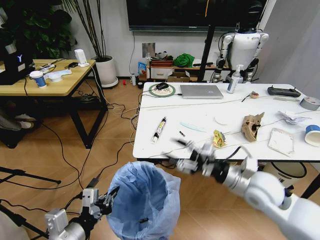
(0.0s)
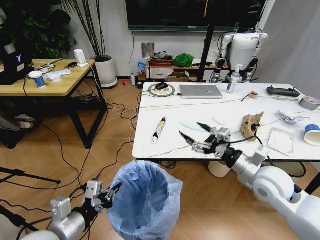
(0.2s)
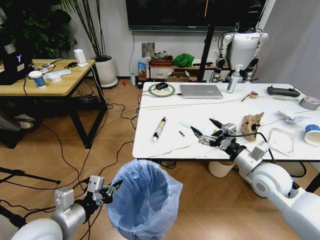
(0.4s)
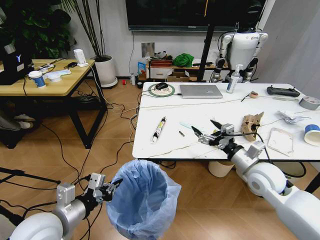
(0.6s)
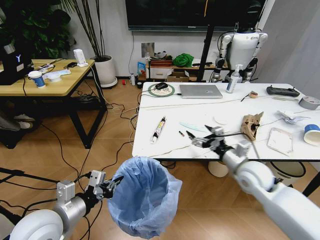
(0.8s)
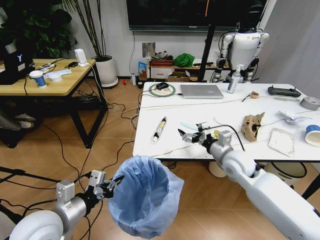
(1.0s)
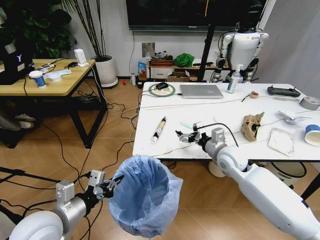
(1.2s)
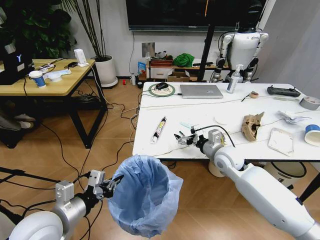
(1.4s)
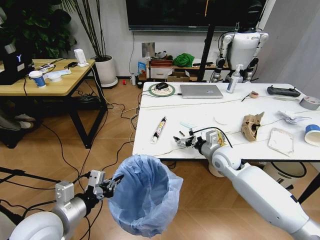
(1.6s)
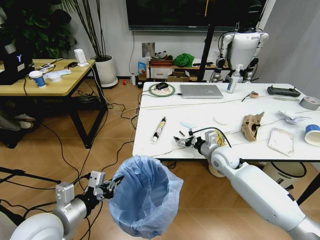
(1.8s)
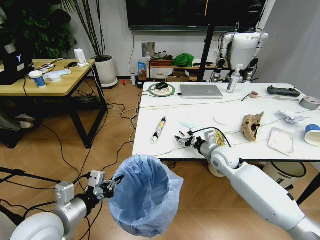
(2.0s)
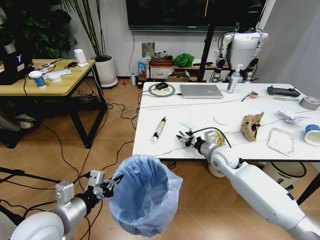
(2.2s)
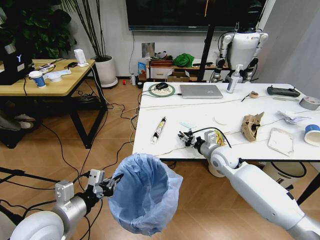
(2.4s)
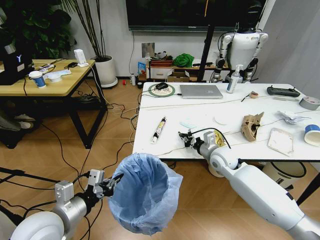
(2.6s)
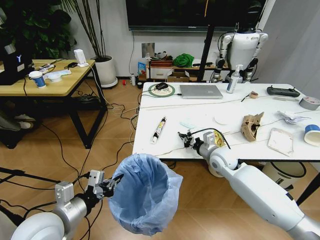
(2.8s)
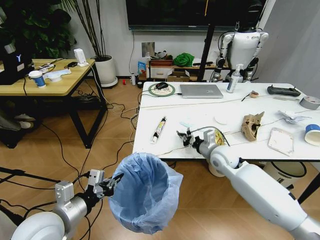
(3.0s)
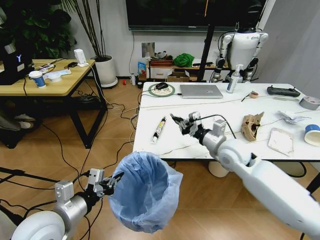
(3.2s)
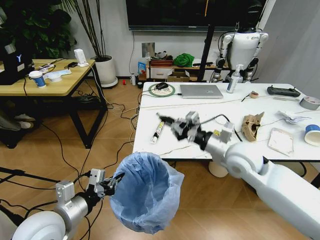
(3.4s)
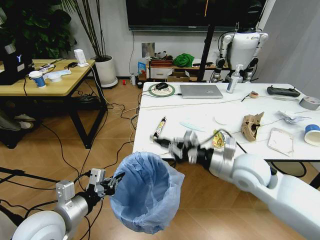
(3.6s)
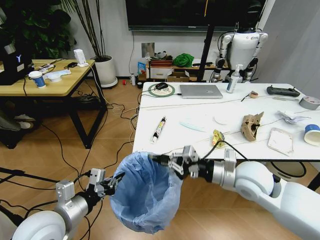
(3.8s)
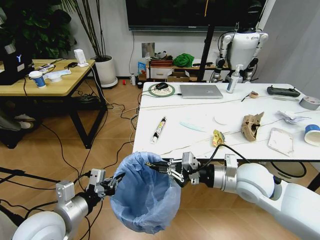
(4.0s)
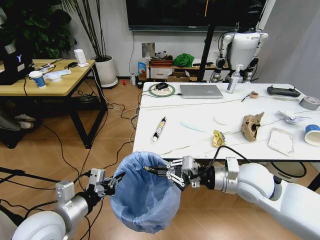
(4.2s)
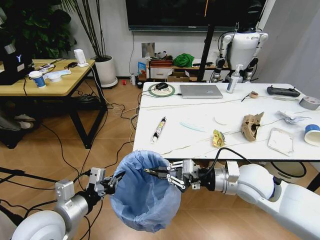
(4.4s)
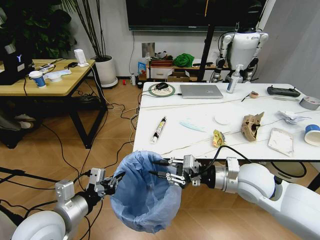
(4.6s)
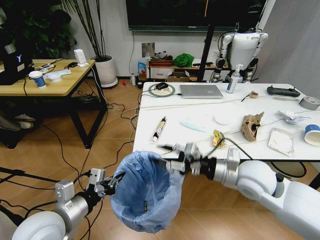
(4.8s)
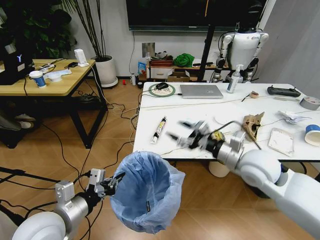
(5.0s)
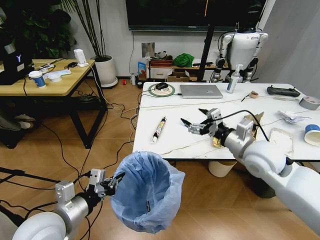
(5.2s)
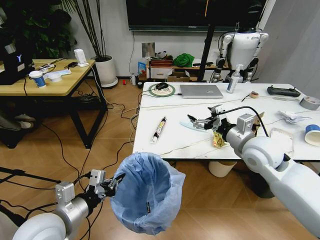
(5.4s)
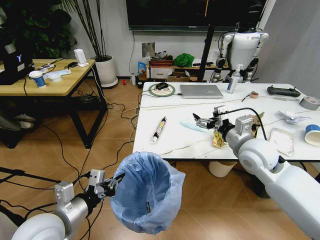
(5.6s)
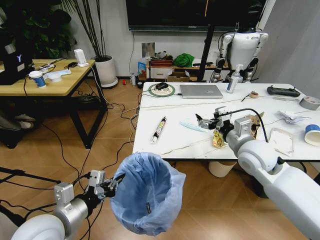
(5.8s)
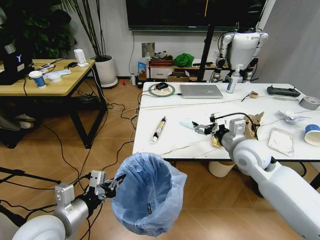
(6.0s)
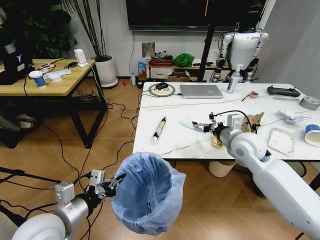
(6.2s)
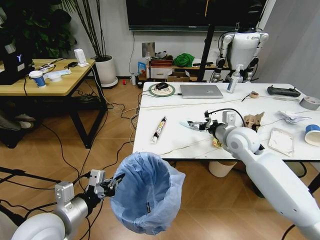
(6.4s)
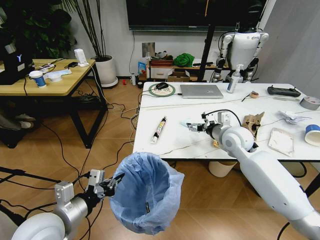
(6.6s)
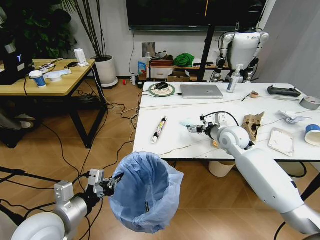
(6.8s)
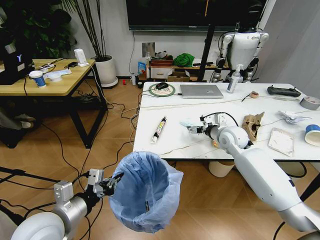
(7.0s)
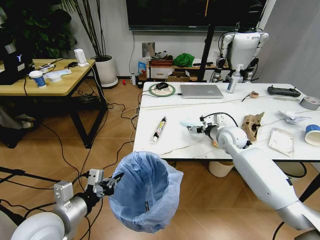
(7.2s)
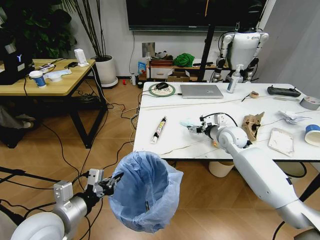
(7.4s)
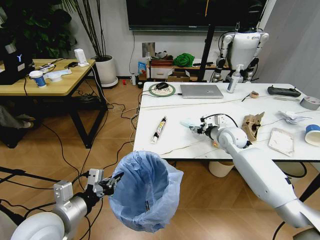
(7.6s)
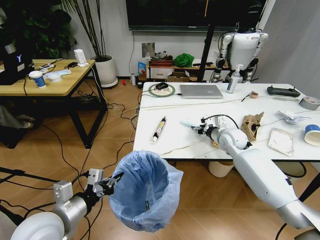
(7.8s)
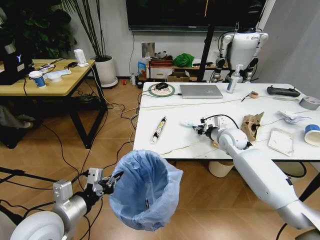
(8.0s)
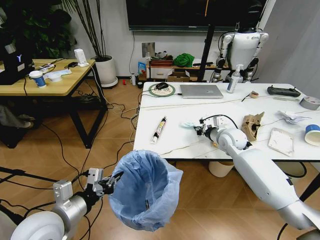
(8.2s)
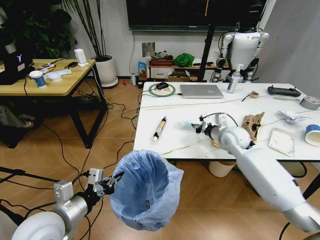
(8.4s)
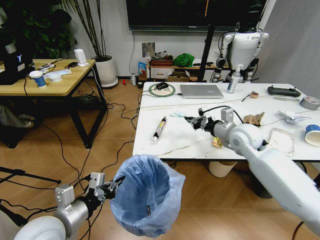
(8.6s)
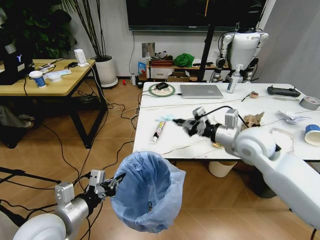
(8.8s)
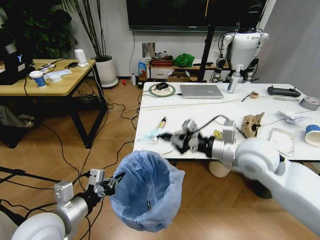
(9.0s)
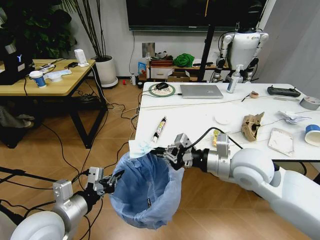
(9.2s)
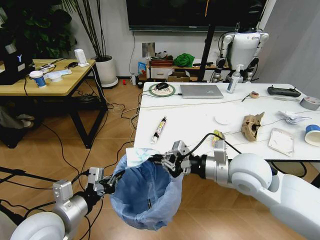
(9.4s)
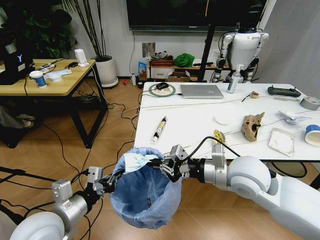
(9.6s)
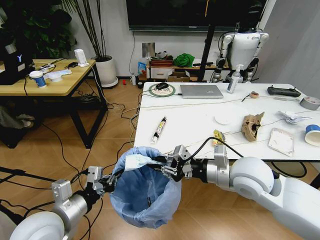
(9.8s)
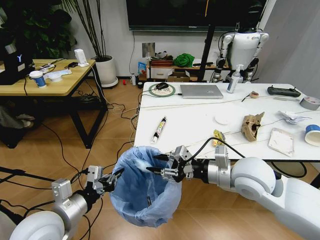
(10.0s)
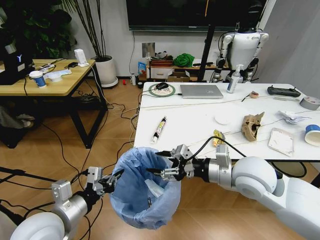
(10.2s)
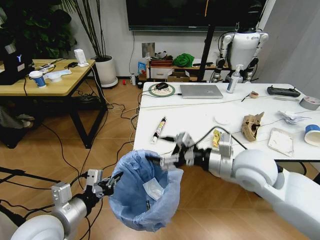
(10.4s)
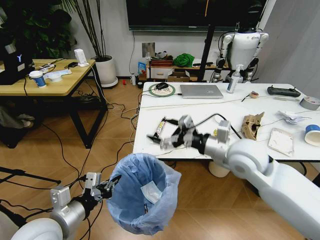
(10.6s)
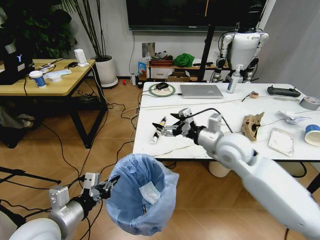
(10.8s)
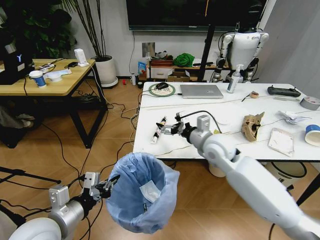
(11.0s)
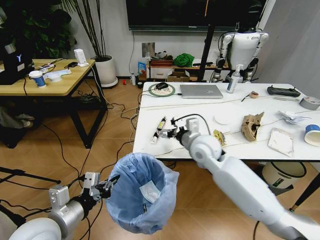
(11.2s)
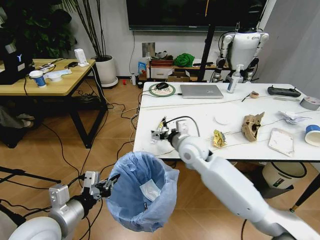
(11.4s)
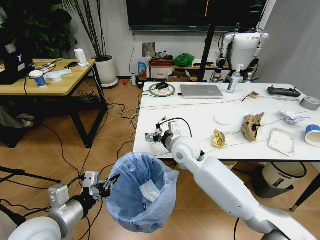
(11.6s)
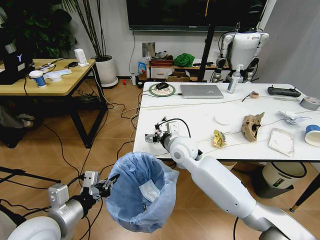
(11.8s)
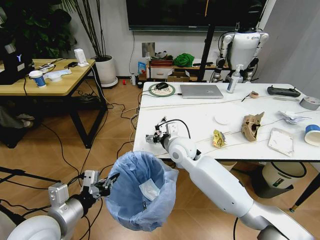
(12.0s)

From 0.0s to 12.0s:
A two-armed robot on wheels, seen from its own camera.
Task of the whole recording: Pick up the trash bin and place the trash from the table into it.
From 0.0s to 1.6s: The right gripper goes approximately 15 cm forward and downward, and opens, while the left gripper goes roughly 5 cm forward.
From 1.6s to 3.0s: The right gripper closes up.
From 3.0s to 4.4s: The right gripper travels backward and upward by roughly 15 cm.
From 4.4s to 6.0s: The right gripper moves forward, approximately 5 cm, and opens its fingers.
From 6.0s to 7.6s: The right gripper is displaced forward and downward by approximately 15 cm.
From 7.6s to 9.0s: The right gripper is displaced backward and upward by about 20 cm, and closes.
From 9.0s to 10.4s: The right gripper opens.
From 10.4s to 12.0s: The right gripper shifts approximately 20 cm to the left, forward and downward.

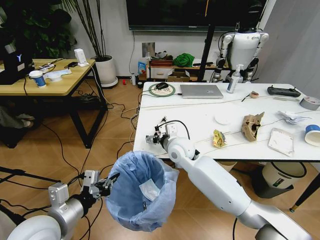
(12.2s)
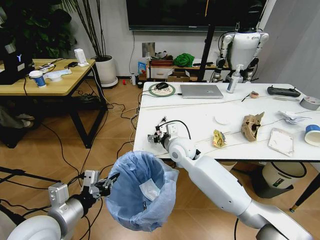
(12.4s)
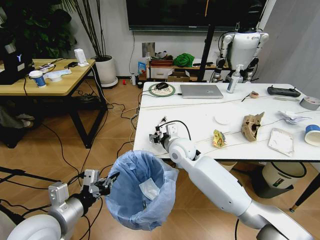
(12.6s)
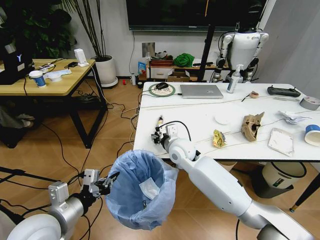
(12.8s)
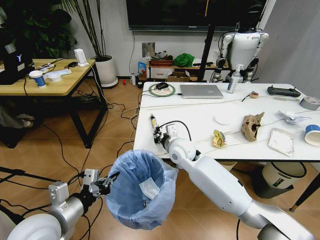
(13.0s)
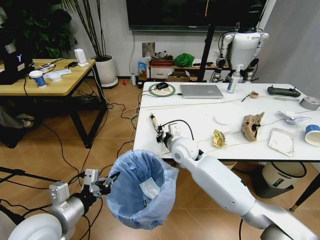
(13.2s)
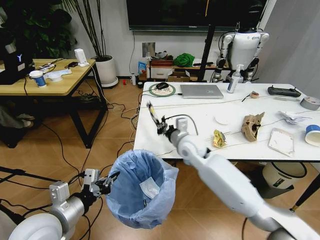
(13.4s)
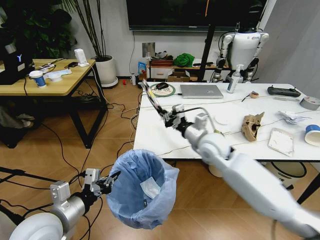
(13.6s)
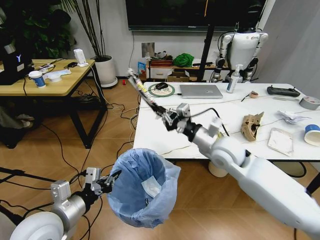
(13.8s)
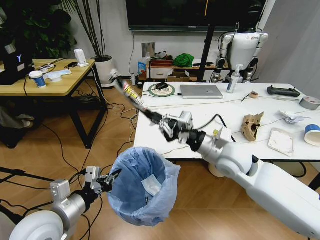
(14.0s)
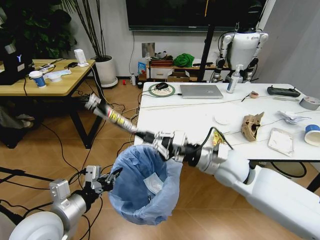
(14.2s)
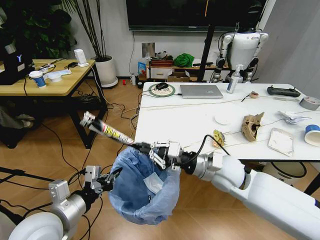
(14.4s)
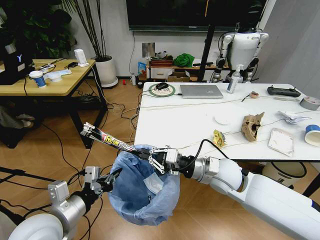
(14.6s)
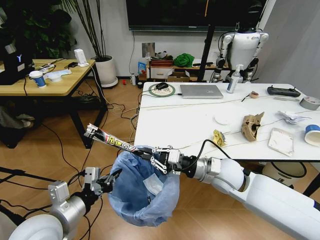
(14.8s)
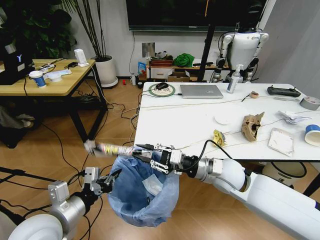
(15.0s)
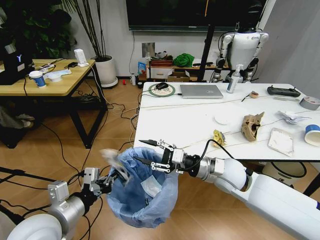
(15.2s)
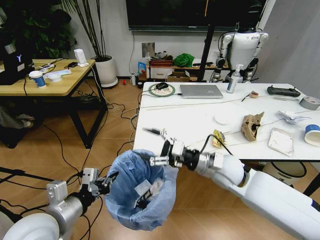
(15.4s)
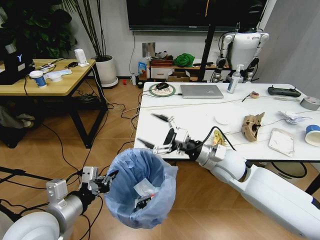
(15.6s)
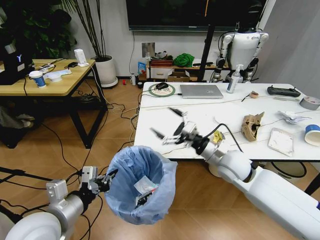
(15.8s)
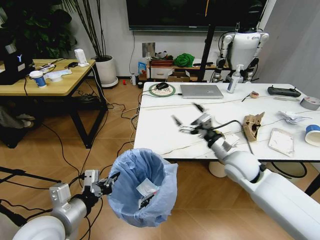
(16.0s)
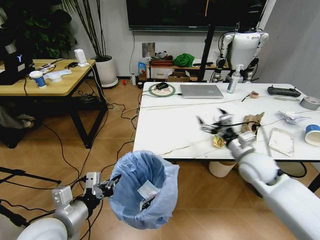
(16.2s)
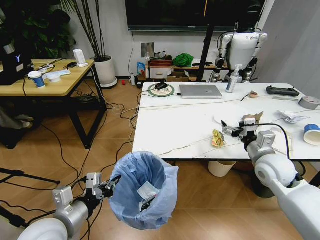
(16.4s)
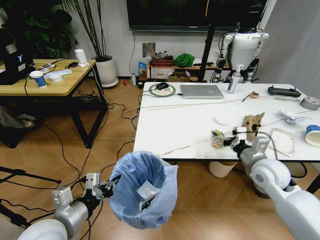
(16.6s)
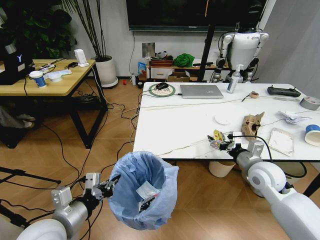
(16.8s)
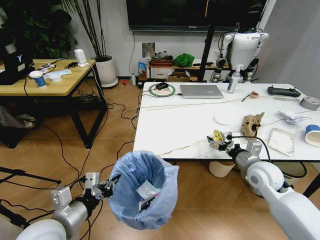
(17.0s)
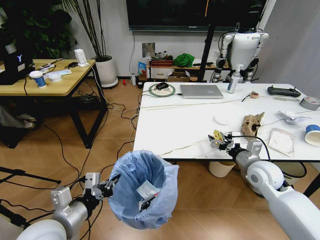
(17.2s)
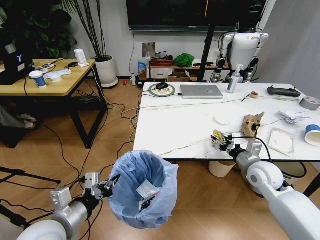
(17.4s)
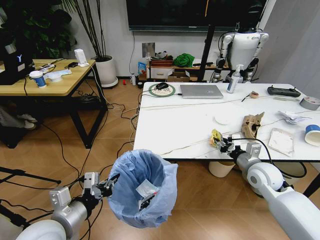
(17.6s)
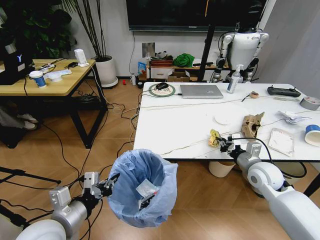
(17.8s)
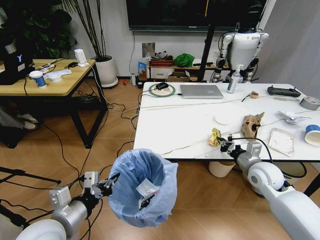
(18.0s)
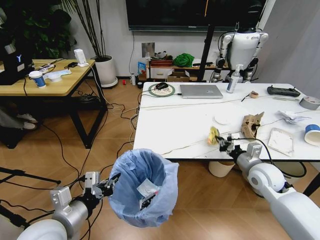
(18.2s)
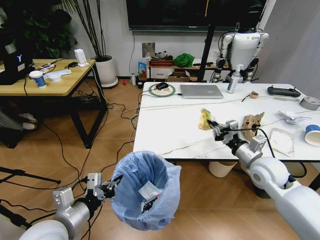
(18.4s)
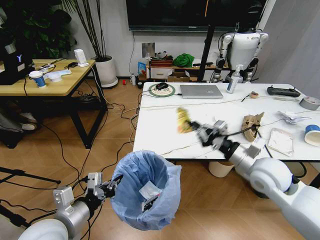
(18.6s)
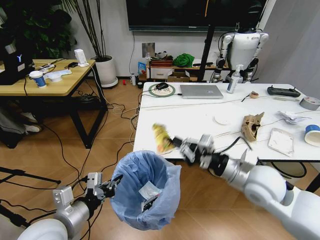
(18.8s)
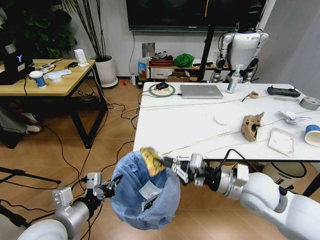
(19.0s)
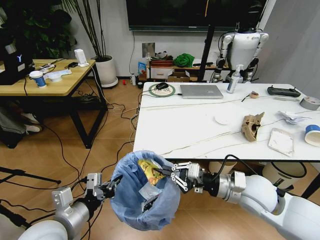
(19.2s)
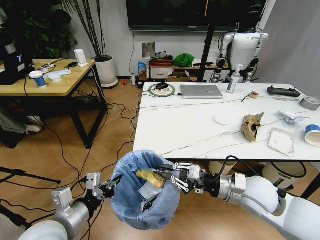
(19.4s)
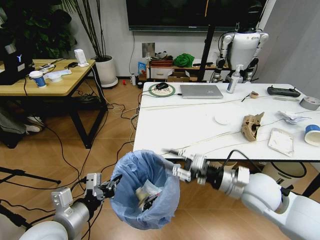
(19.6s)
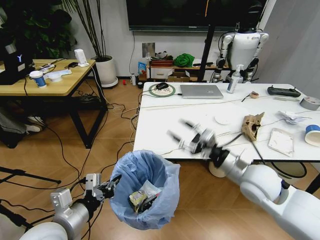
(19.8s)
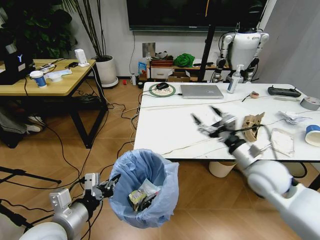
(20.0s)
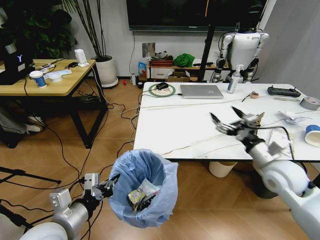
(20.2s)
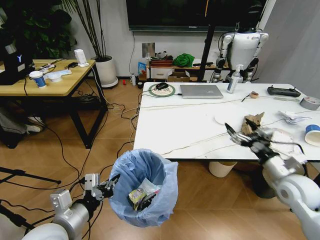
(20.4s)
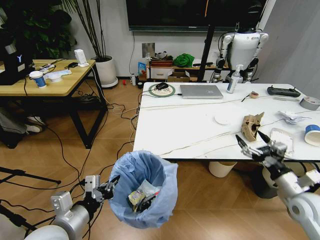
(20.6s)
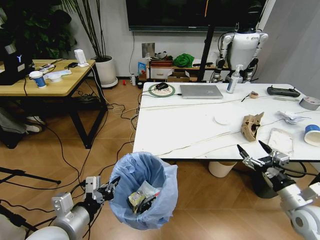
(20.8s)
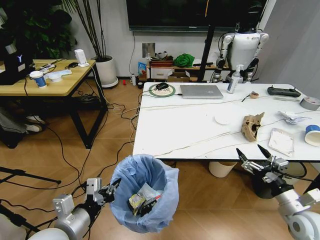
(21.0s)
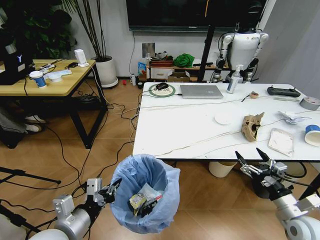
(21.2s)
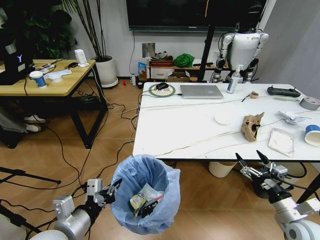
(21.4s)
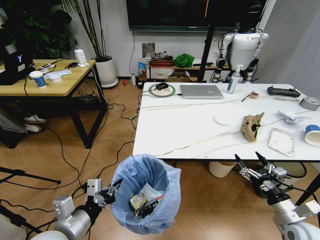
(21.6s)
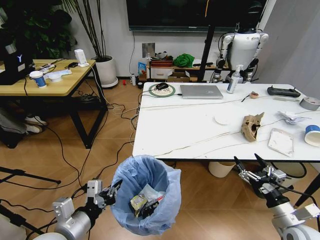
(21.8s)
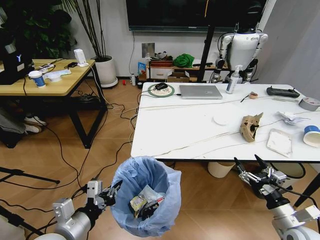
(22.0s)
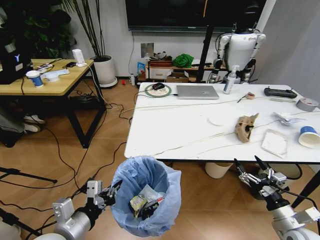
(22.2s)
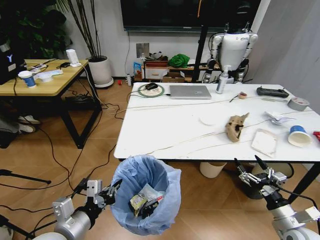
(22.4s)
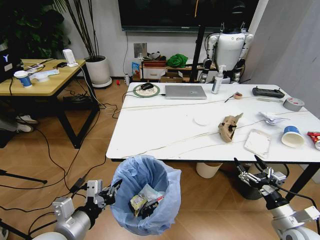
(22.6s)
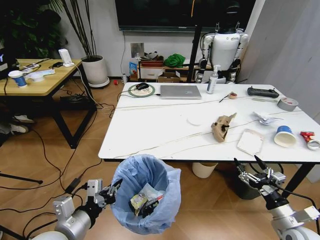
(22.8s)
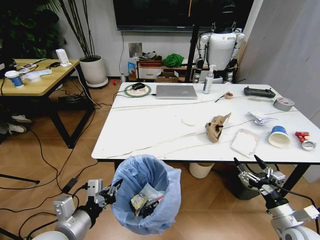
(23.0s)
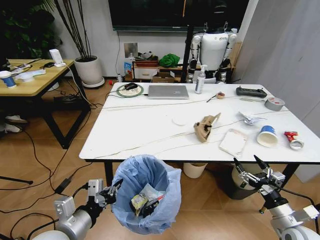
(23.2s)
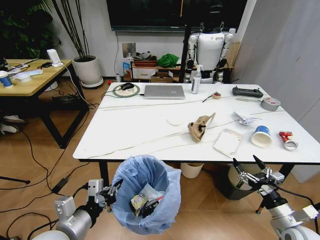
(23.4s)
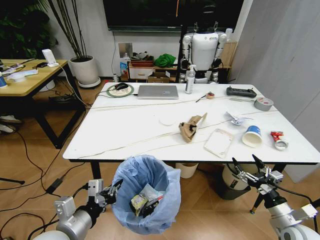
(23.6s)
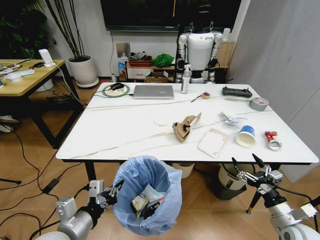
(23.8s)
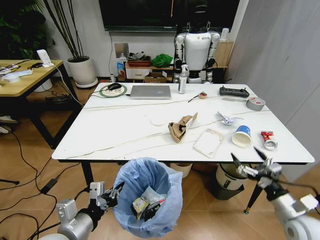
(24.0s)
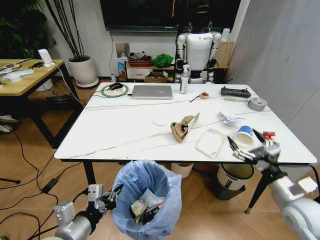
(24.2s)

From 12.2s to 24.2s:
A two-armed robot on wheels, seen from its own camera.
Task of the whole recording: Pick up the trash bin and place the trash from the table into it.
From 12.2s to 13.8s: The right gripper travels to the right, upward and backward by about 15 cm, and closes.
From 13.8s to 15.2s: The right gripper travels downward by approximately 5 cm, and opens up.
From 15.2s to 16.6s: The right gripper travels to the right by about 15 cm, and opens up.
From 16.6s to 18.2s: The right gripper closes.
From 18.2s to 19.8s: The right gripper is displaced to the left, upward and backward by some 15 cm, and opens its fingers.
From 19.8s to 21.2s: The right gripper moves to the right, downward and backward, some 20 cm, and opens up.
From 22.6s to 24.2s: The right gripper goes about 10 cm upward and forward.
